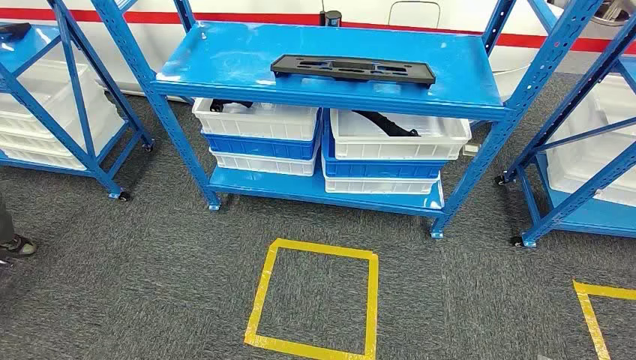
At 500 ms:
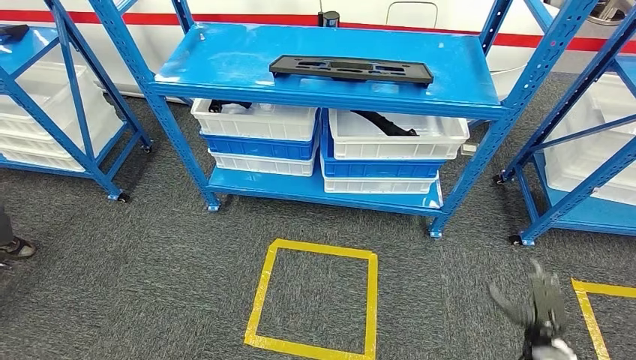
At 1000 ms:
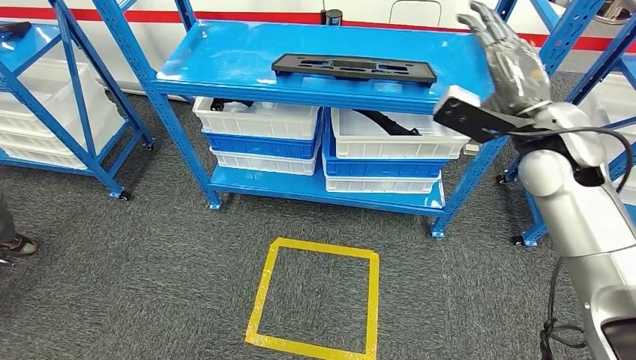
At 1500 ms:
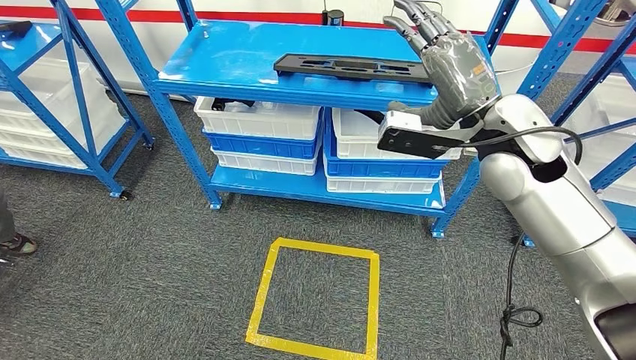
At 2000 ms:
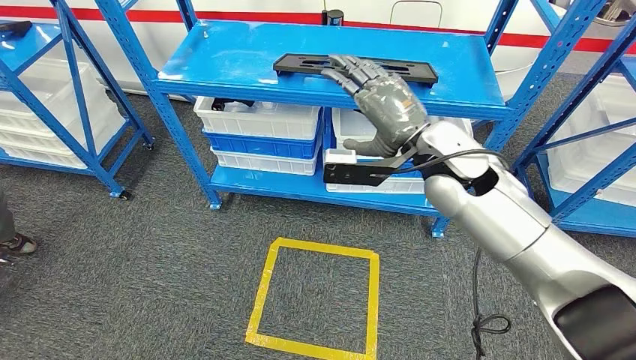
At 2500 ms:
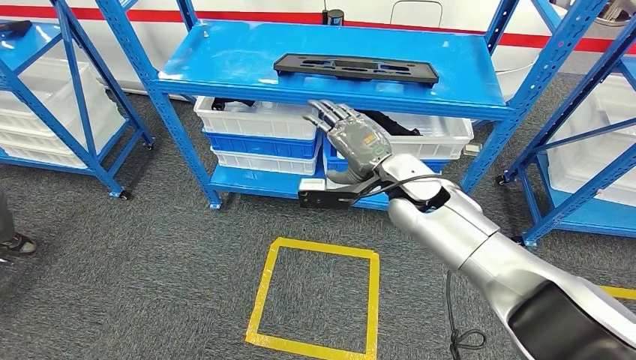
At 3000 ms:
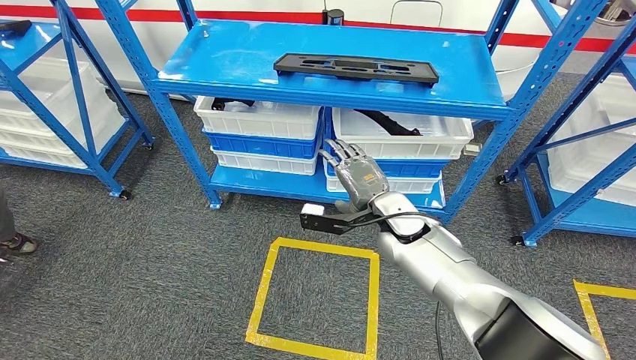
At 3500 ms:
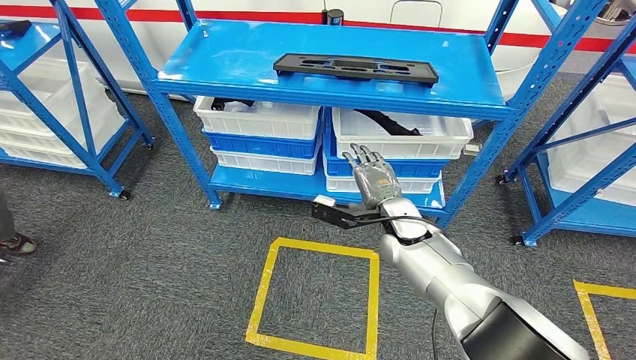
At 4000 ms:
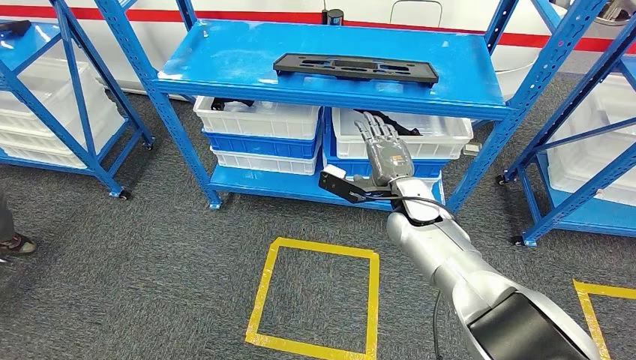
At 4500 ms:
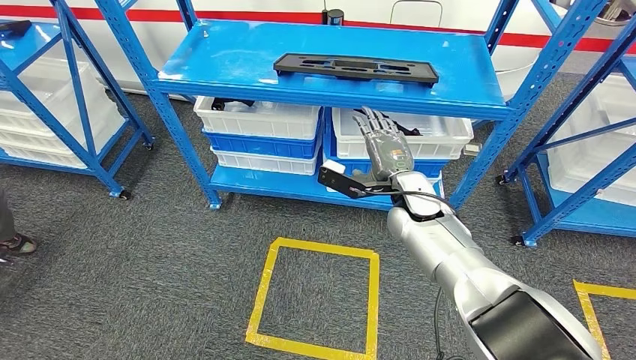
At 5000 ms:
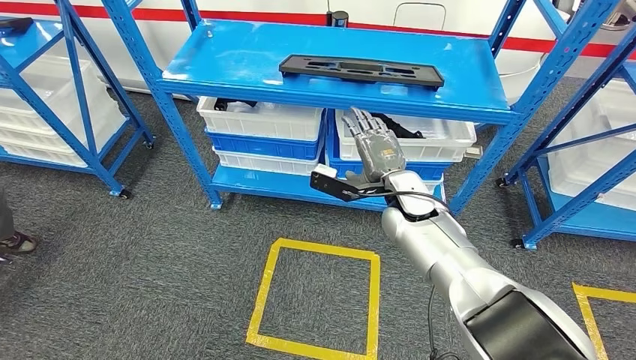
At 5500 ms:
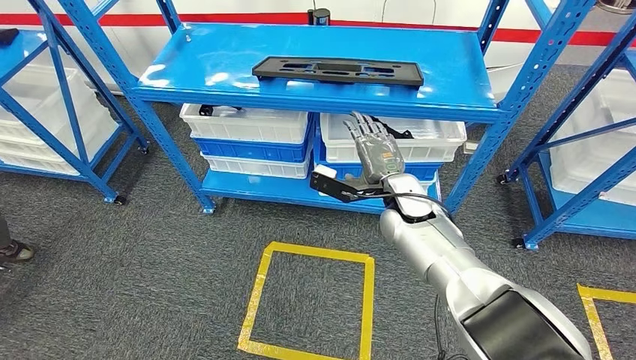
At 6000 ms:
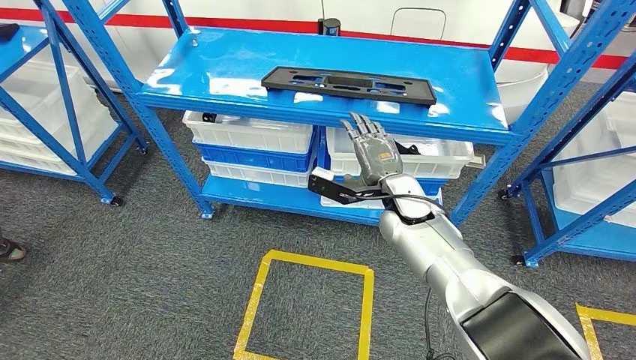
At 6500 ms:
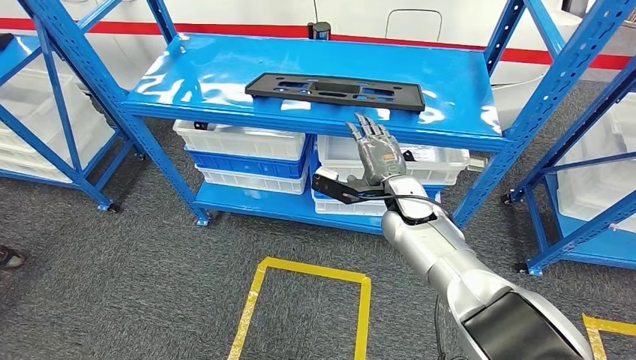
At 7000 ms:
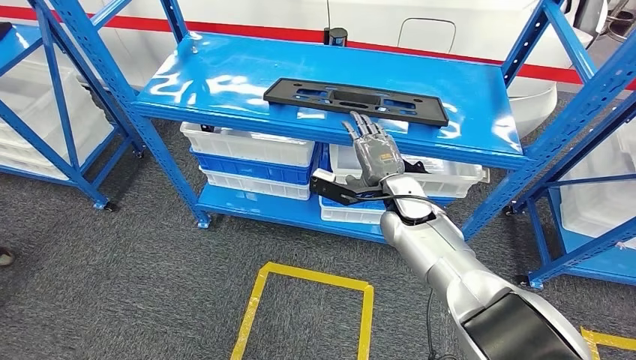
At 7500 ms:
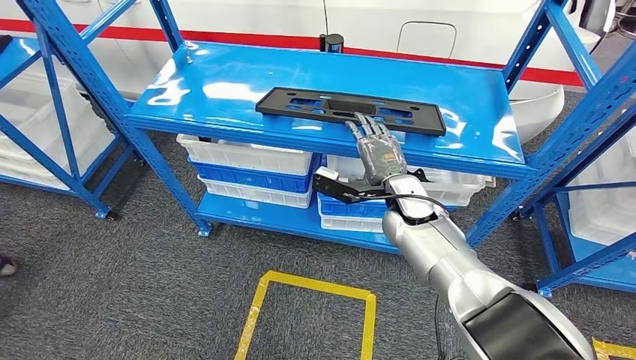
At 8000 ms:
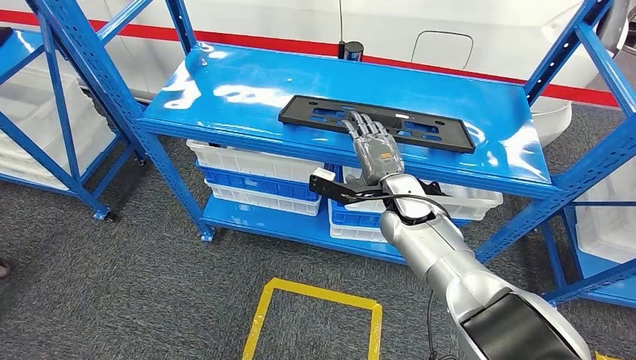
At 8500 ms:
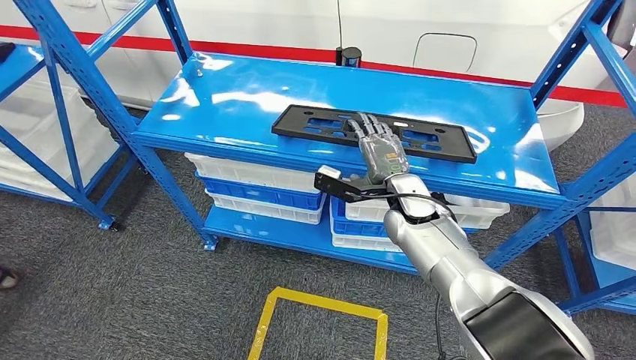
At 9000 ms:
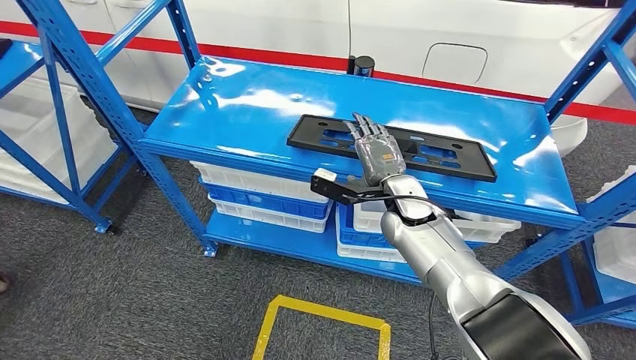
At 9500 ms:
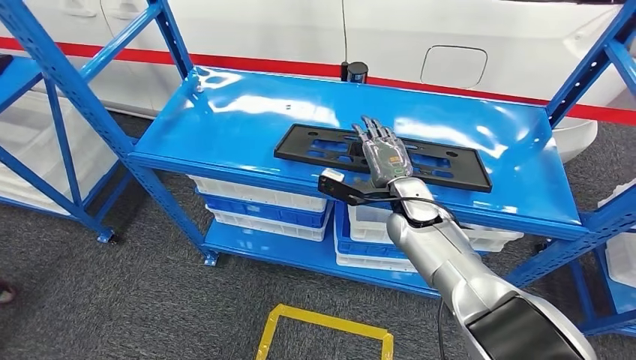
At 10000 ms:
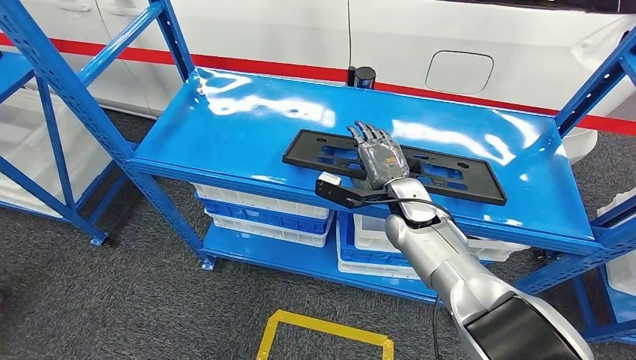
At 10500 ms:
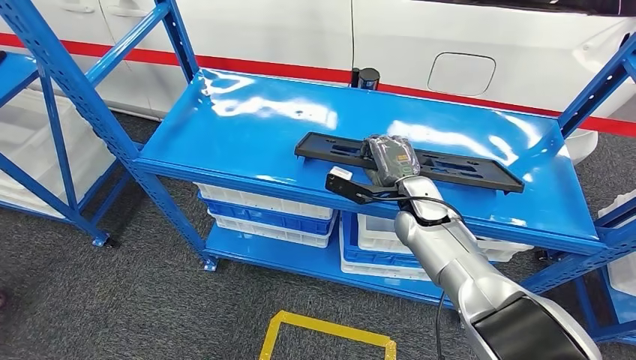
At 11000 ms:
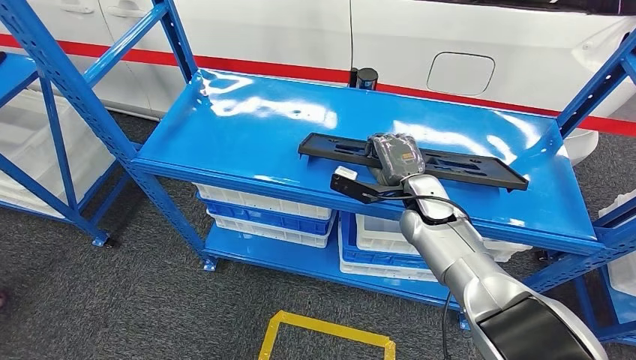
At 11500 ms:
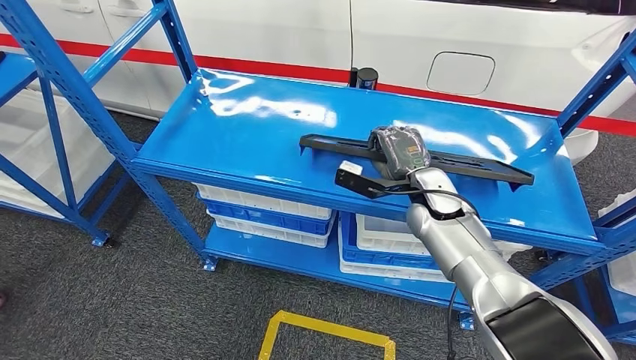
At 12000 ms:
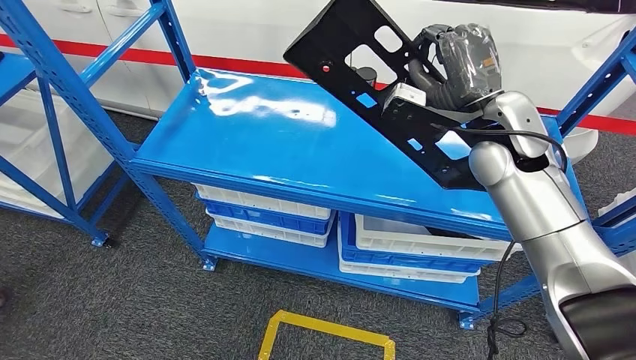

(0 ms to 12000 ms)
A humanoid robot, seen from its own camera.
2000 ms - 4000 ms: The right hand moves downward, roughly 15 cm.

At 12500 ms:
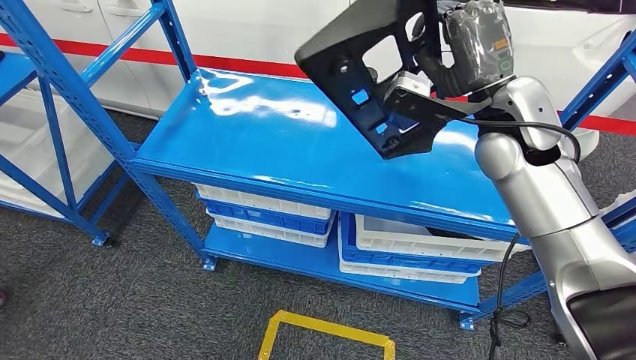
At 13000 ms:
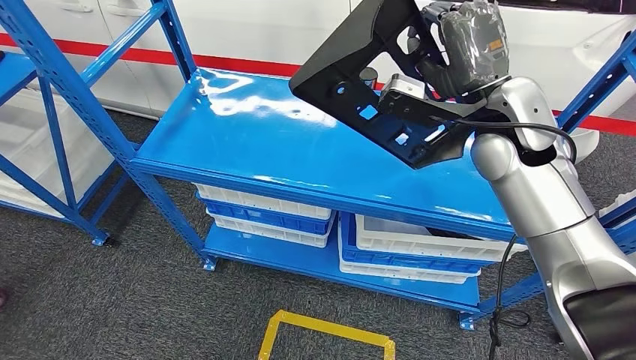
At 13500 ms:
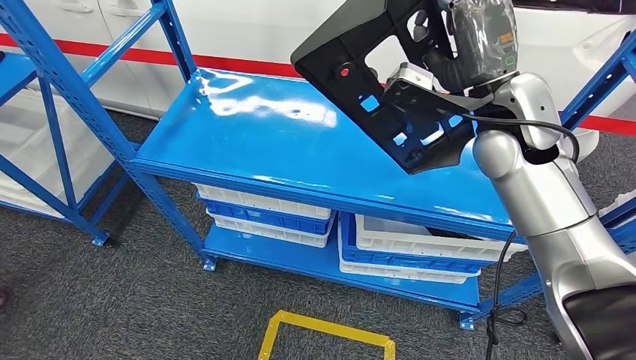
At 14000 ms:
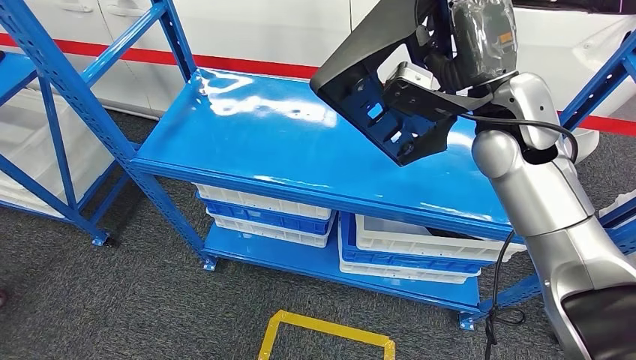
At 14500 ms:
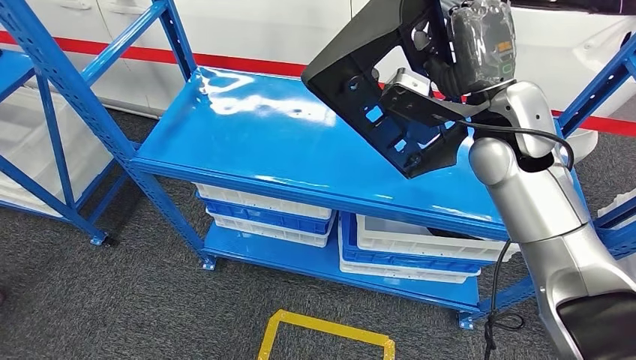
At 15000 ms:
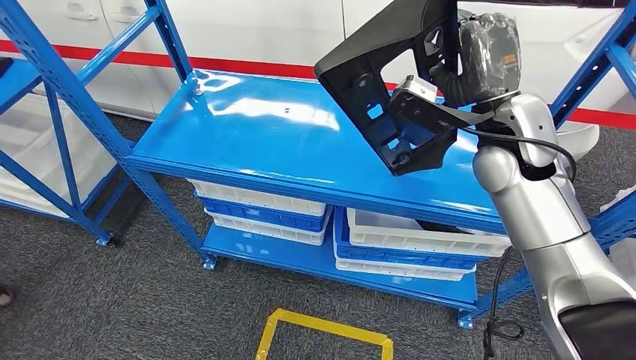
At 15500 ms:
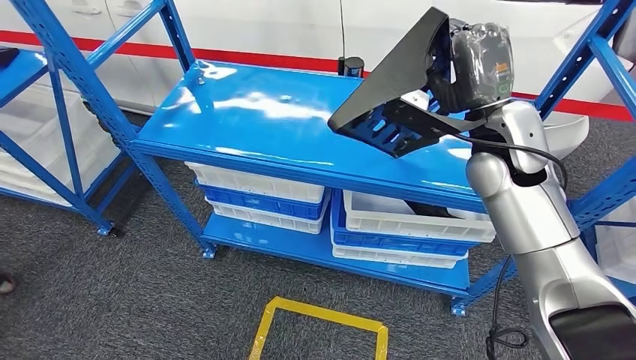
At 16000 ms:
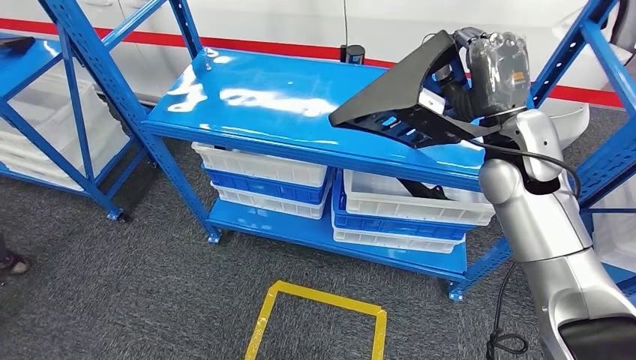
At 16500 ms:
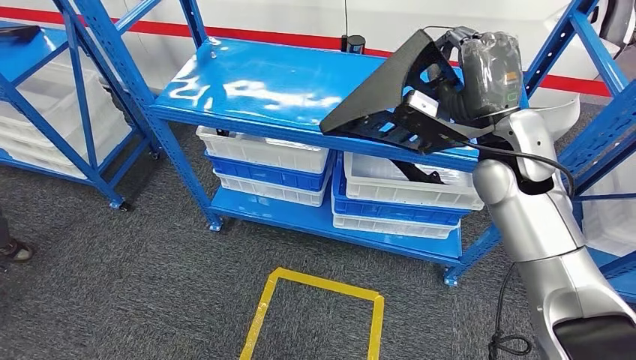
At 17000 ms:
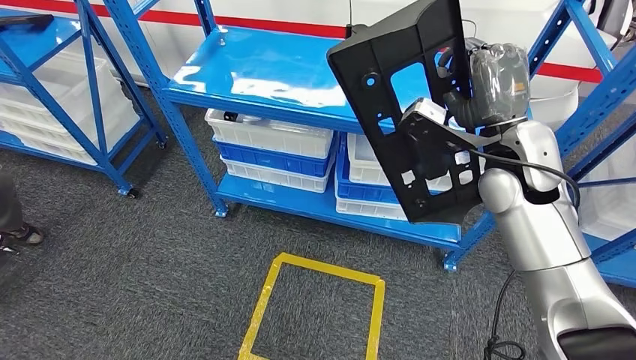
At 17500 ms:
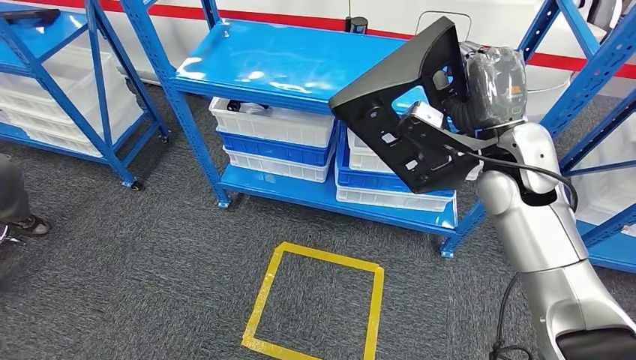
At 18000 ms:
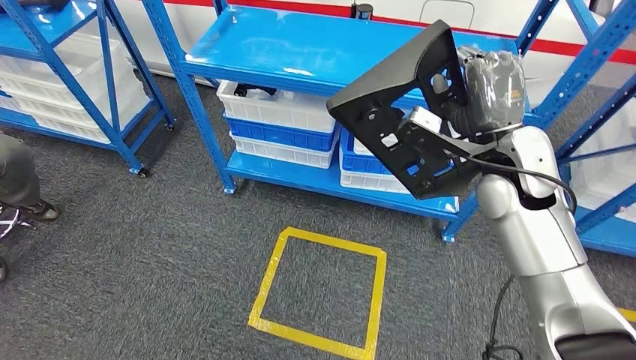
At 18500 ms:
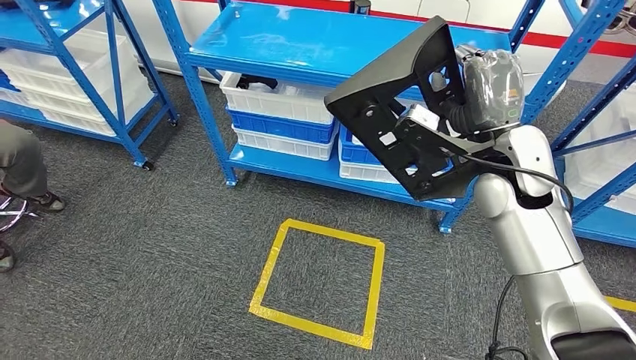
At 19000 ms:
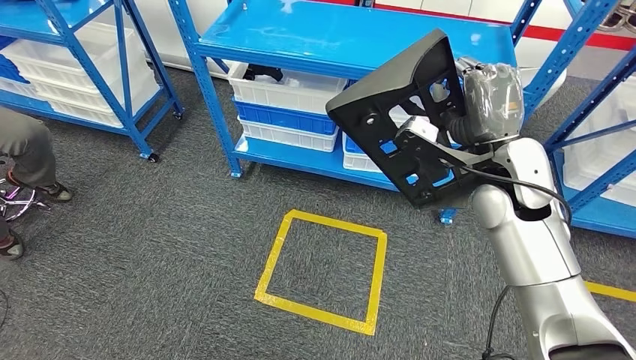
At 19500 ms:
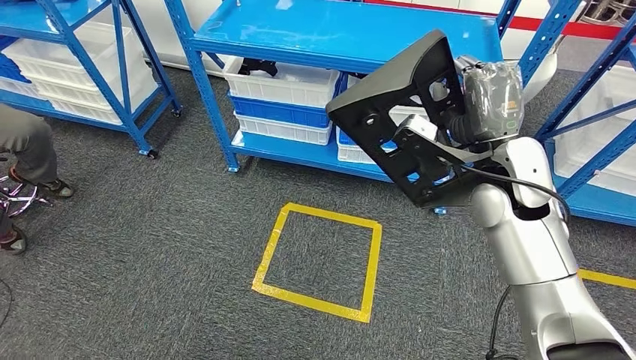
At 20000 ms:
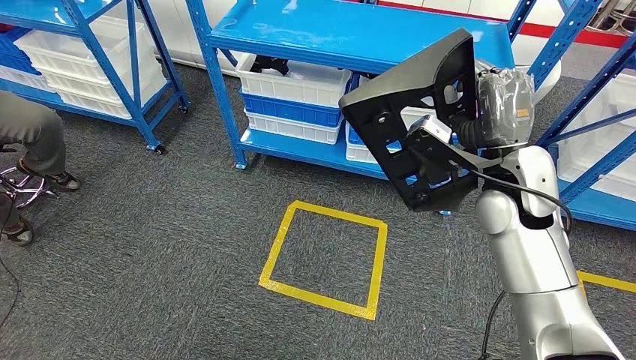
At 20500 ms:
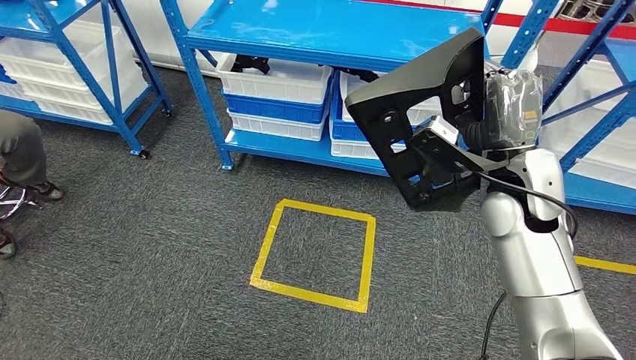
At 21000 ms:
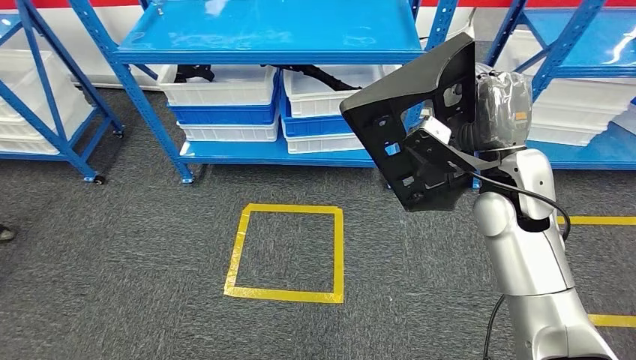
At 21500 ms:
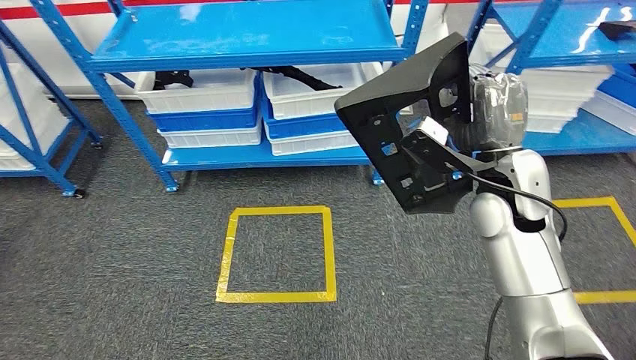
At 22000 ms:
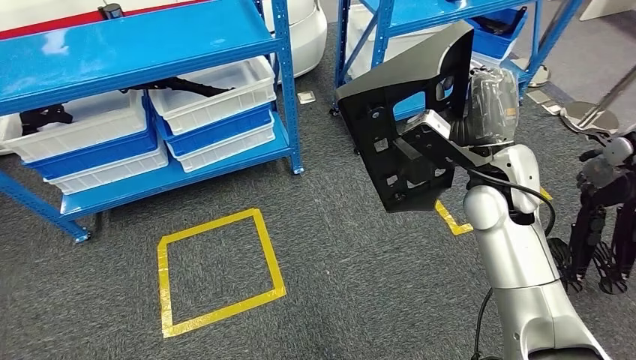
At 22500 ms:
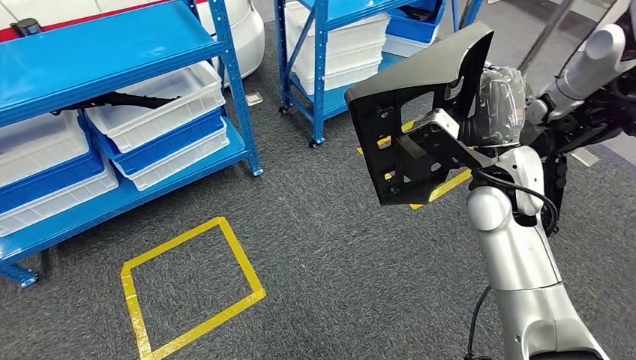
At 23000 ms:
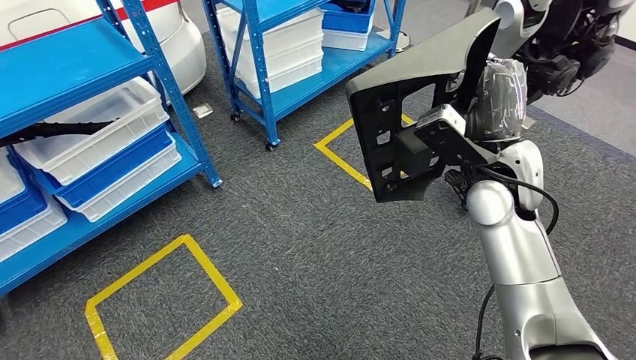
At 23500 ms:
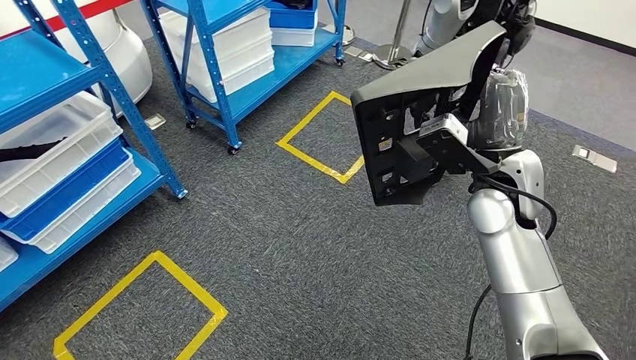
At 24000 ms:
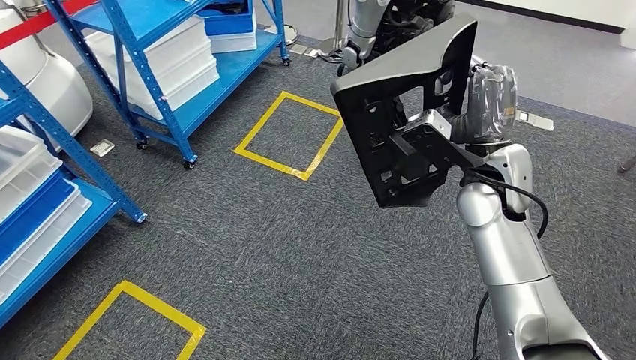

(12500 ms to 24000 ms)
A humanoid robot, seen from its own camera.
12500 ms - 14500 ms: The hands move only a little.
